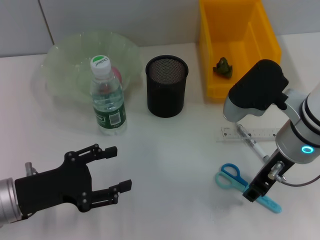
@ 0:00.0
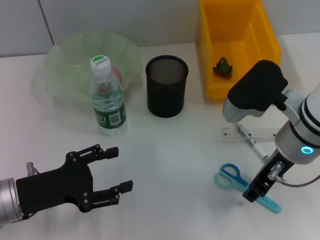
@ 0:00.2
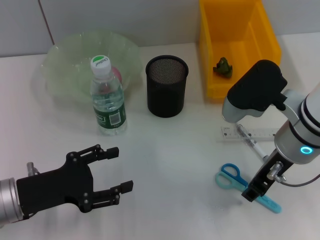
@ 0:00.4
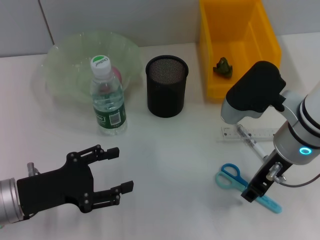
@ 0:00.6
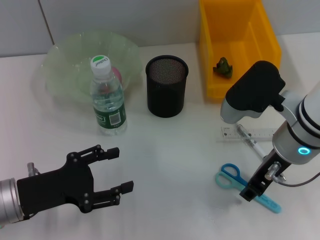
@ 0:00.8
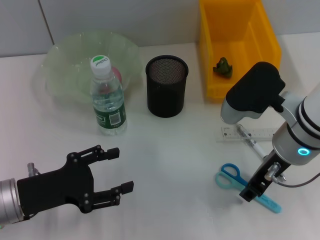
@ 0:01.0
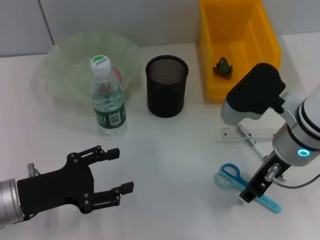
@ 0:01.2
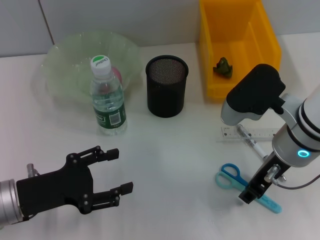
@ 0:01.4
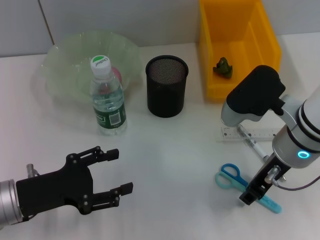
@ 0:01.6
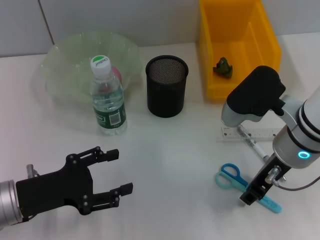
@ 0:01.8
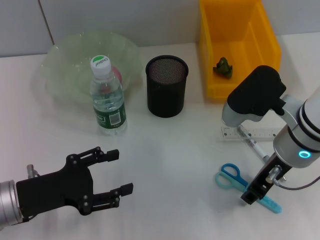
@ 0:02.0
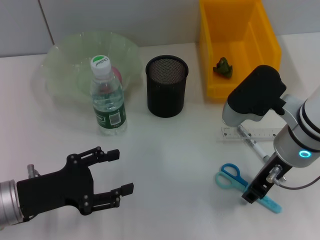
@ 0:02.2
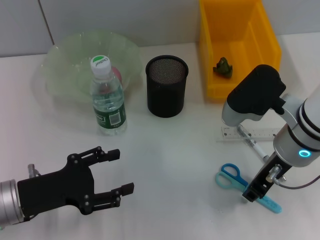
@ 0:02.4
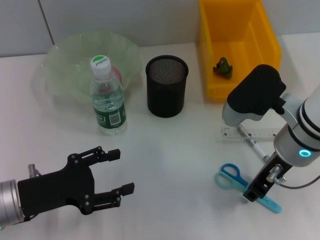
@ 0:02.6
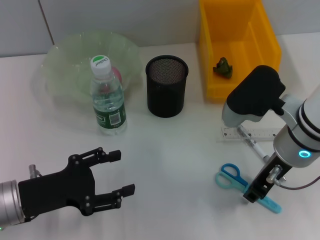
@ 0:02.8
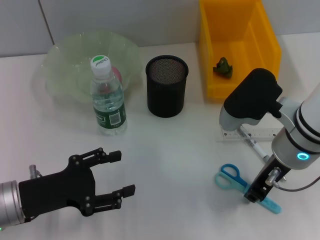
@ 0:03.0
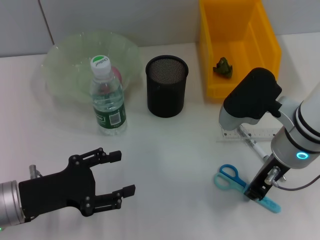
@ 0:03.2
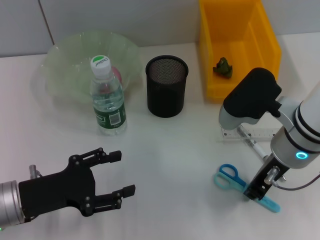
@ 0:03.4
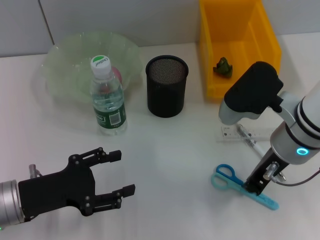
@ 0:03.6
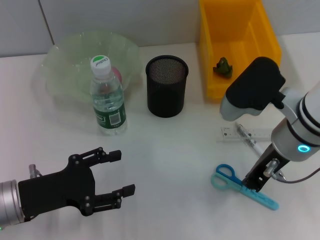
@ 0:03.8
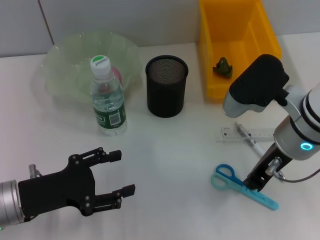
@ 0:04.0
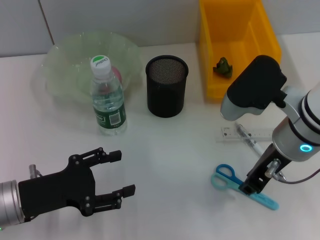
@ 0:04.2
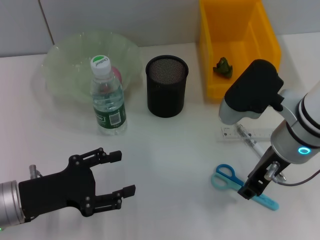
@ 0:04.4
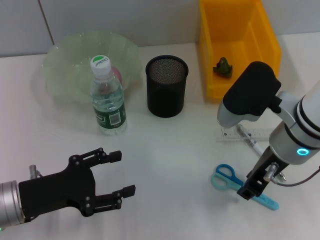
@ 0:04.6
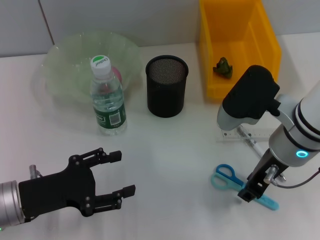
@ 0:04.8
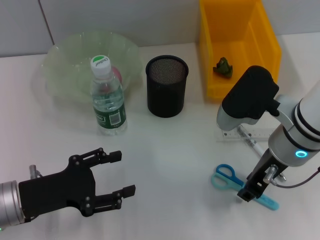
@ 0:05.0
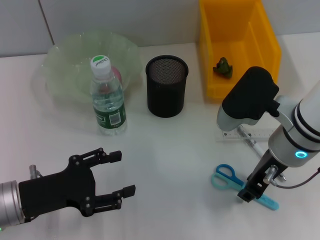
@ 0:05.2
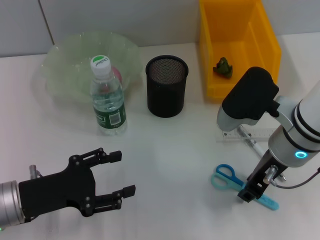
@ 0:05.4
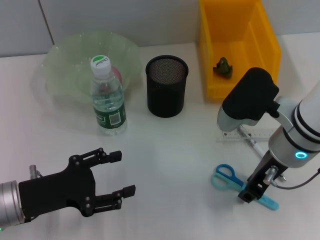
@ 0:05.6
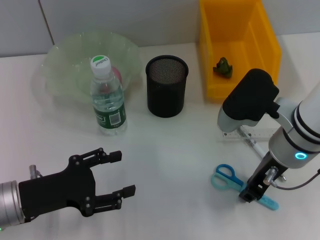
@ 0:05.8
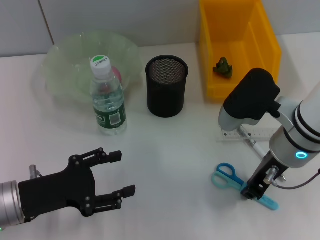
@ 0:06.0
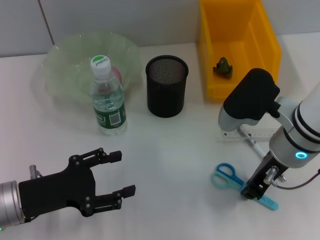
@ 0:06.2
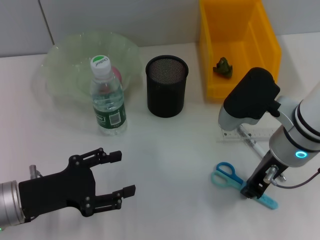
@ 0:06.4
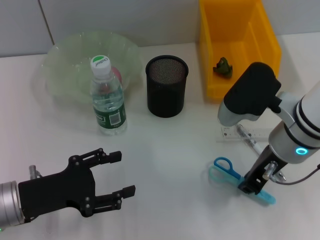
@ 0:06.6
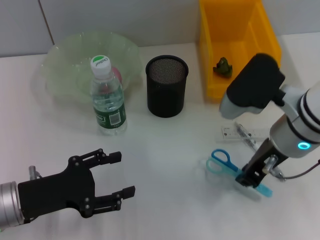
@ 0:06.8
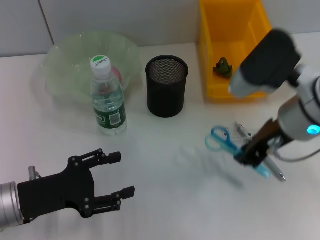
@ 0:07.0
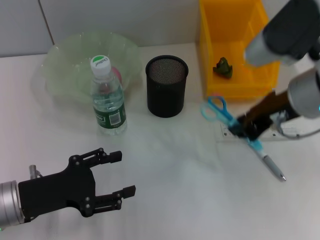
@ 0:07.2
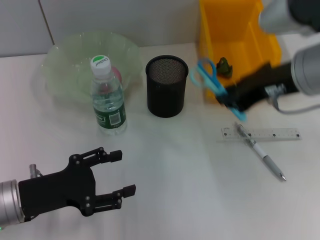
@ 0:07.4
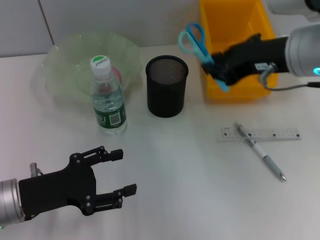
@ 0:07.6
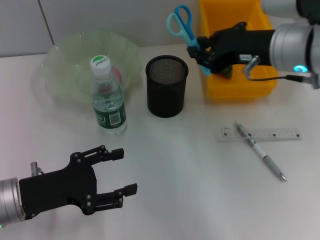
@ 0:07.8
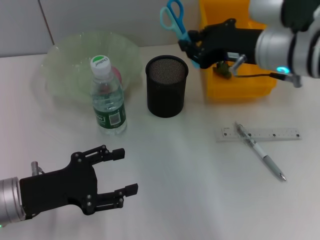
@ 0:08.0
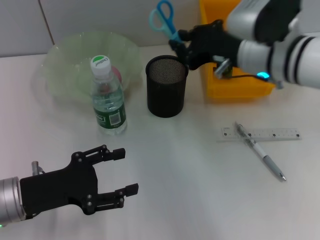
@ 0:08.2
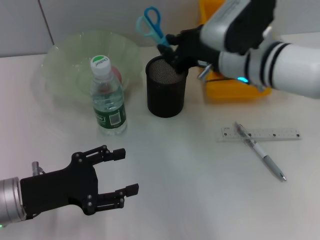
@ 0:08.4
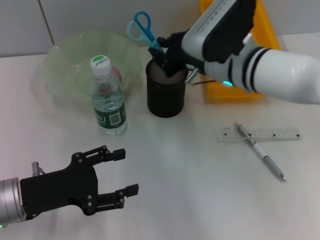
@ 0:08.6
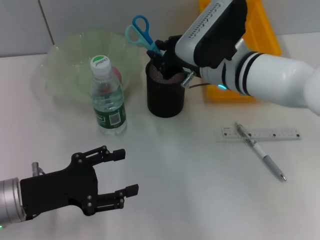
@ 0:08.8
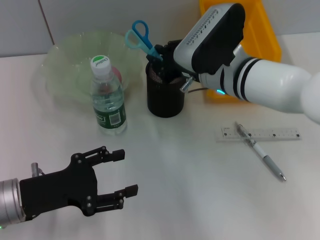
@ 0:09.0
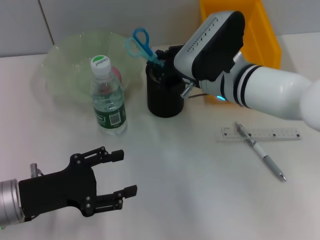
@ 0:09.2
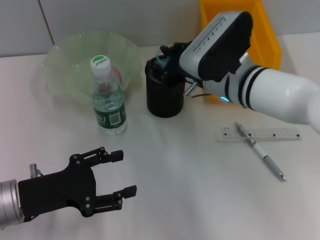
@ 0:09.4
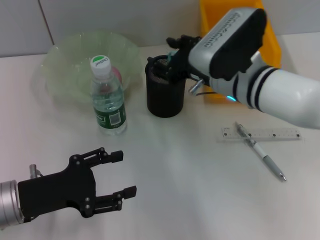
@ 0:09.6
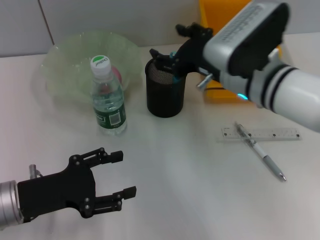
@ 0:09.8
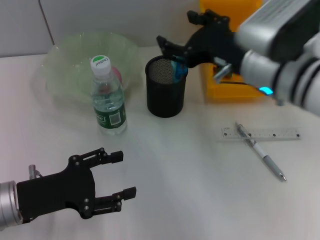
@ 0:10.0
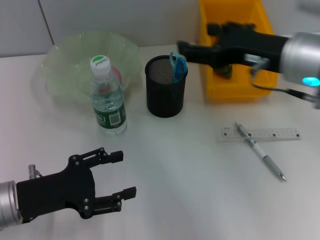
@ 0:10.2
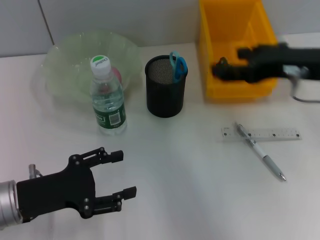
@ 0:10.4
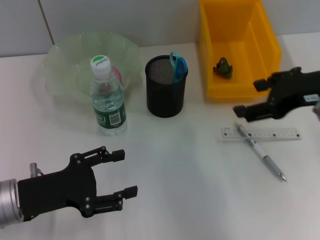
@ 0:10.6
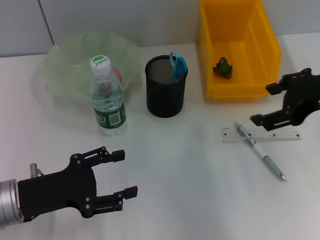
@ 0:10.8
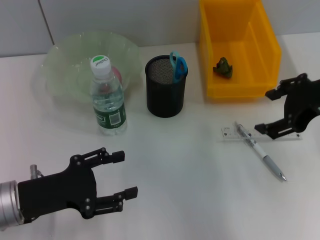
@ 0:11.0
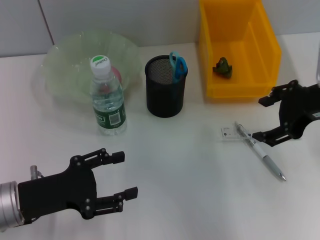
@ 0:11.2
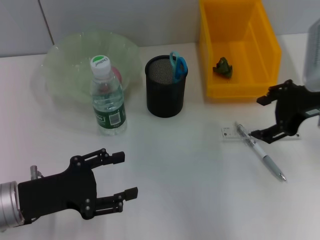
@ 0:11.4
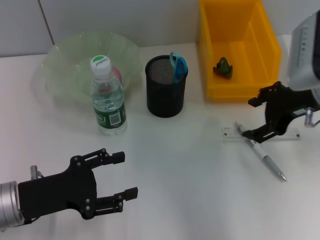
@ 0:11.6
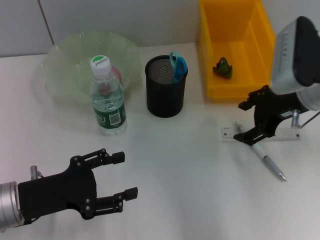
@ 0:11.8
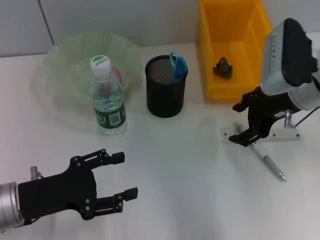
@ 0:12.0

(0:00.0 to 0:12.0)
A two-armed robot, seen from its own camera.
Step, 0:00.0 - 0:06.0: Grab the blue scissors with the right hand.
Step, 0:06.2 - 0:09.6: Place the blue scissors into the pen holder with the right hand.
0:00.0 - 0:03.0: Neither gripper changes place.
0:03.0 - 0:06.0: The grippers make only small movements.
0:06.0 - 0:07.6: The right gripper is displaced upward by roughly 10 cm.
0:07.6 - 0:09.0: The right gripper moves downward, to the left and forward, some 15 cm.
0:09.0 - 0:10.4: The right gripper shifts about 15 cm to the right, upward and backward, and opens up.
0:10.4 - 0:12.0: The right gripper moves downward and forward, roughly 10 cm.

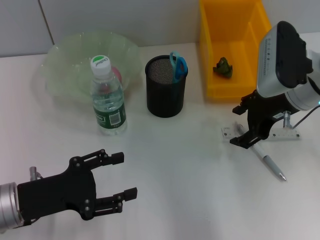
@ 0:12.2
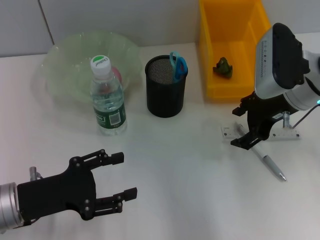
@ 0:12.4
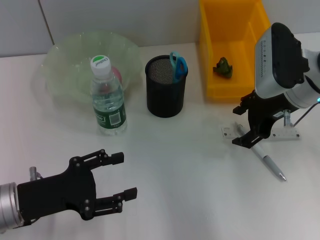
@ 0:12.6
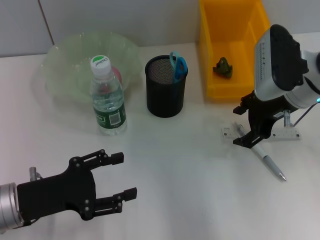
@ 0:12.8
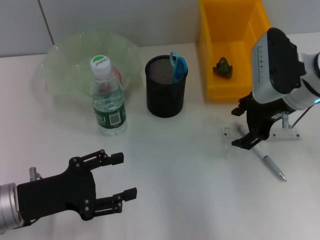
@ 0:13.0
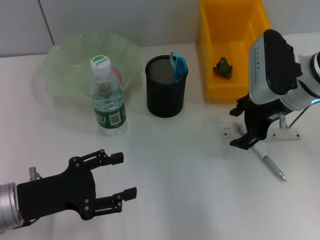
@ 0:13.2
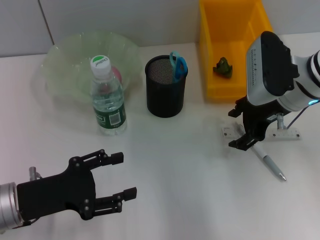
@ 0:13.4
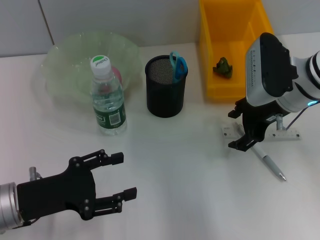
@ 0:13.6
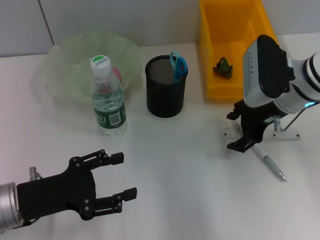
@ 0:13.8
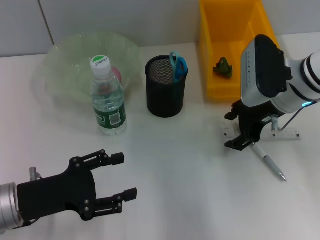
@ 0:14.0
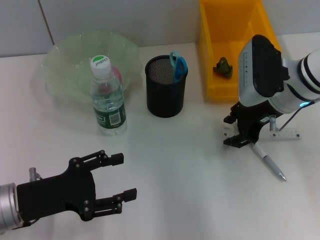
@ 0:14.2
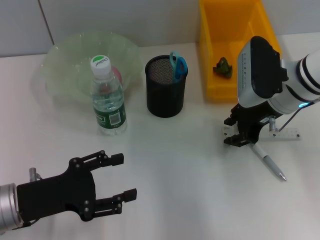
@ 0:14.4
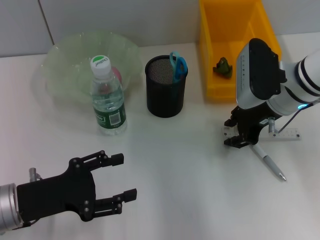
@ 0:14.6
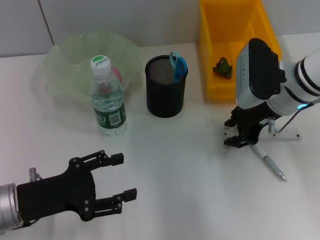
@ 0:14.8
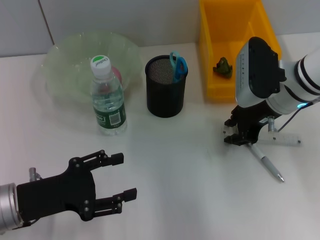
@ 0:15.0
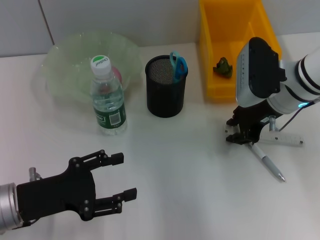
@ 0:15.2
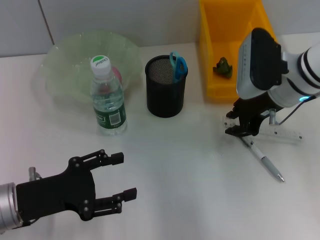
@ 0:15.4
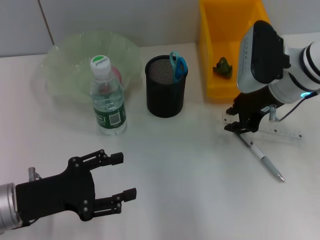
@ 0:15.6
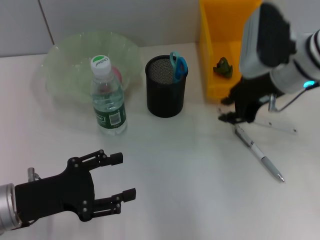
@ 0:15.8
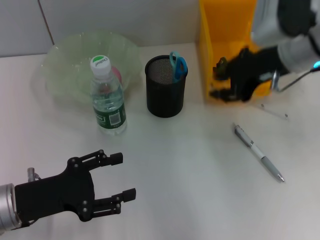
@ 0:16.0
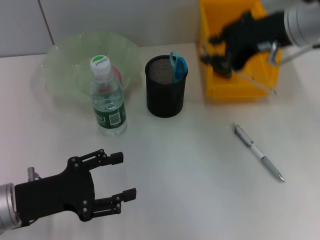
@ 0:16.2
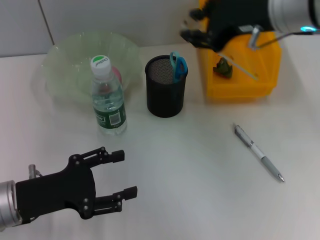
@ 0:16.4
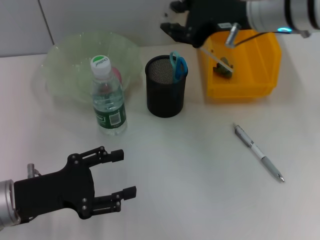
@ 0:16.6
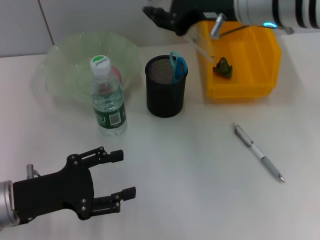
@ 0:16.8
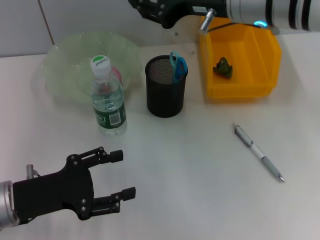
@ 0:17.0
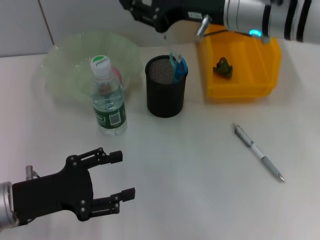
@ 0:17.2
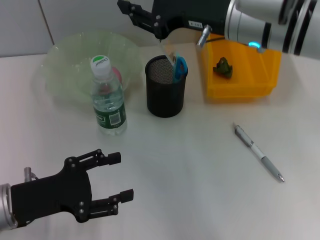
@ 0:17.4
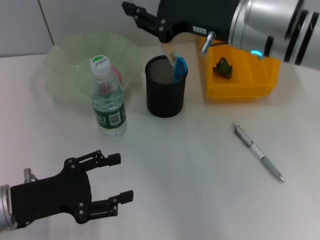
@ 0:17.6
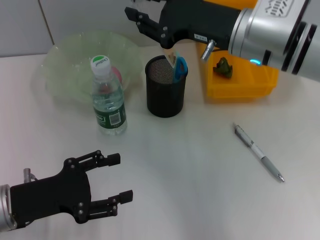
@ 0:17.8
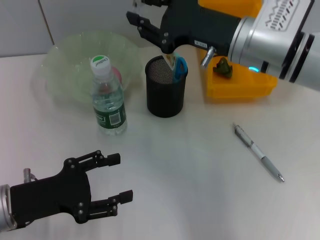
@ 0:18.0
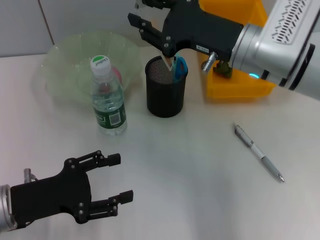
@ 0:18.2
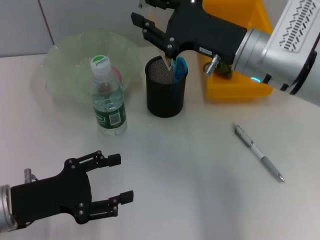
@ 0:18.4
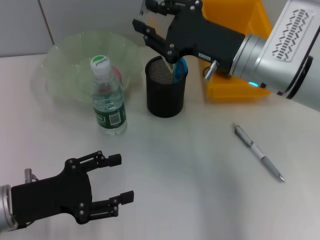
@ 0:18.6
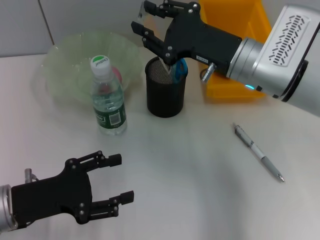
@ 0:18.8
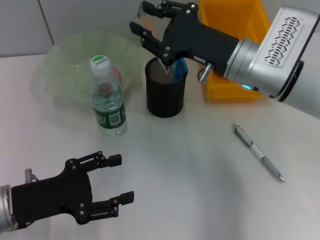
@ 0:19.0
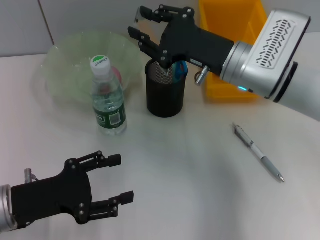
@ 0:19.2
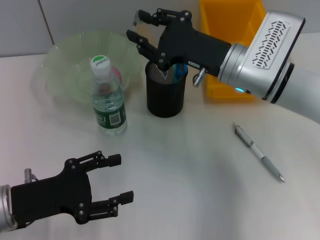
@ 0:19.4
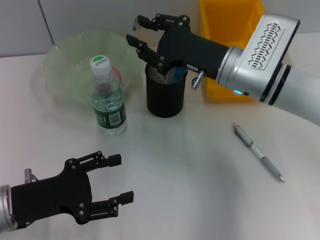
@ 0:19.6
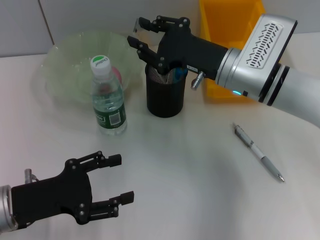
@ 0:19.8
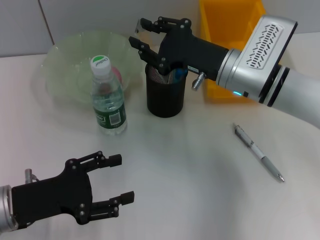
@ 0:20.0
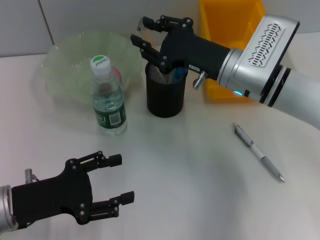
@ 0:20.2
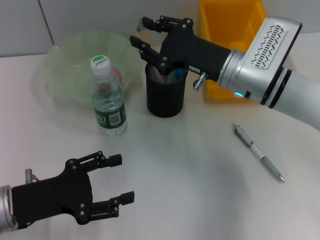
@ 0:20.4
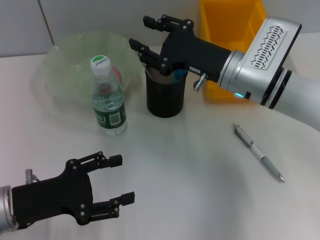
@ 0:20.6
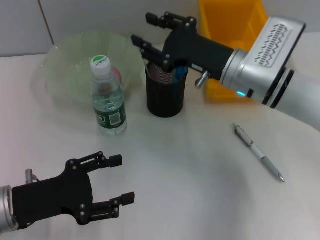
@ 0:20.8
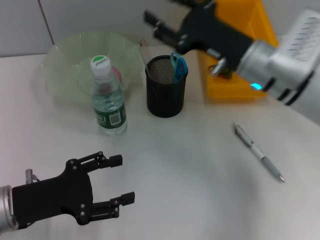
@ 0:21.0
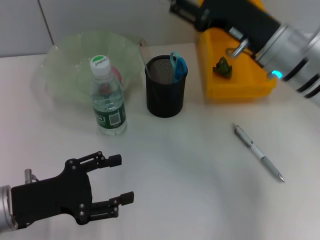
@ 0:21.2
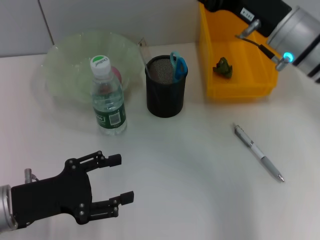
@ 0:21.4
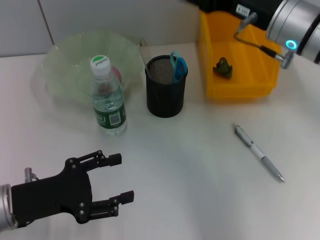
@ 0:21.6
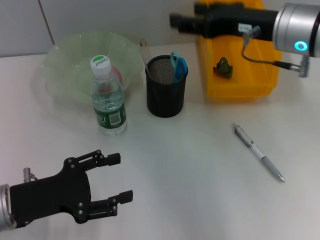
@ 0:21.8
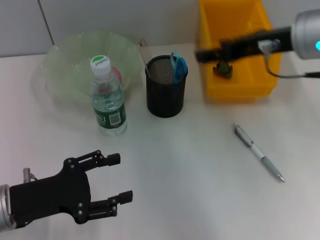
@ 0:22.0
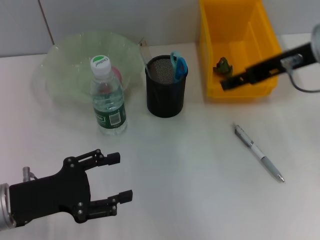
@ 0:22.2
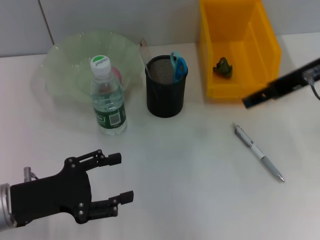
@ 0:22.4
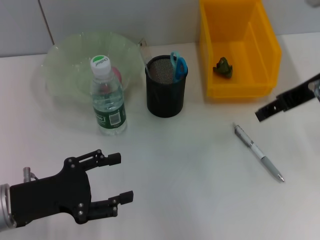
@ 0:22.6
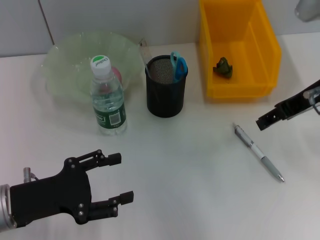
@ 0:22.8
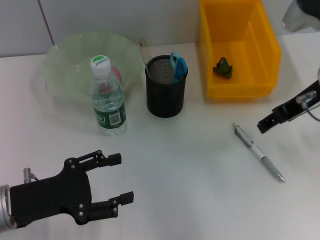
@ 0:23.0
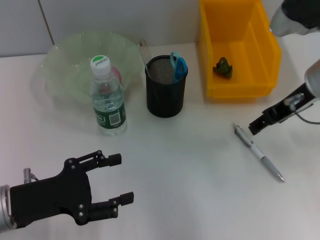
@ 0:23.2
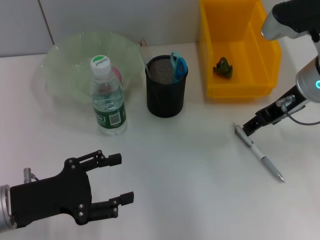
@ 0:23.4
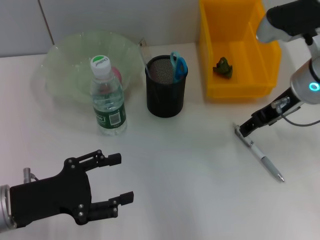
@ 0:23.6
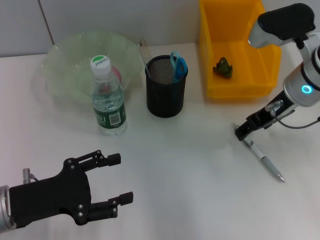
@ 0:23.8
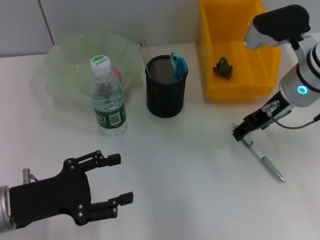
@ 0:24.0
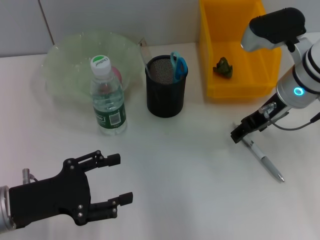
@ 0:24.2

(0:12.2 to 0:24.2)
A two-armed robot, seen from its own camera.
Step, 0:12.2 - 0:15.0: Grab the ruler with the right hand.
Step, 0:15.2 - 0:20.6: Place the ruler into the pen holder with the right hand.
0:12.2 - 0:13.8: The grippers move only a little.
0:13.8 - 0:15.2: The right gripper closes its fingers.
0:15.2 - 0:16.6: The right gripper moves upward and to the left, some 15 cm.
0:16.6 - 0:18.2: The right gripper goes approximately 10 cm downward.
0:18.2 - 0:19.8: The right gripper moves some 5 cm.
0:19.8 - 0:21.2: The right gripper moves roughly 5 cm.
0:21.2 - 0:22.6: The right gripper travels upward and to the right by approximately 10 cm.
0:22.6 - 0:24.2: The right gripper heads downward, covering some 10 cm.
